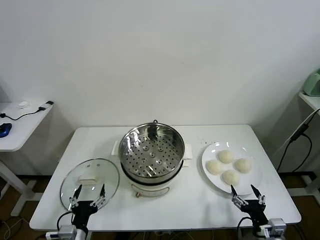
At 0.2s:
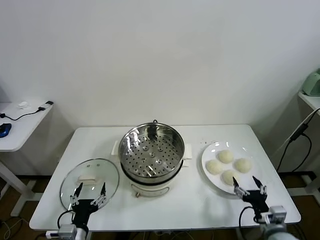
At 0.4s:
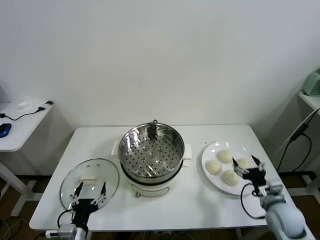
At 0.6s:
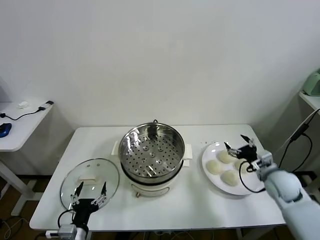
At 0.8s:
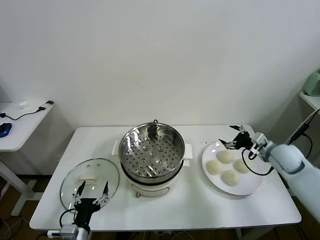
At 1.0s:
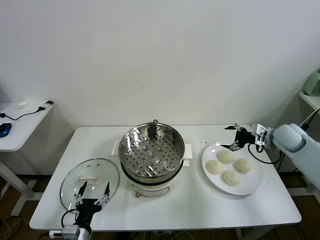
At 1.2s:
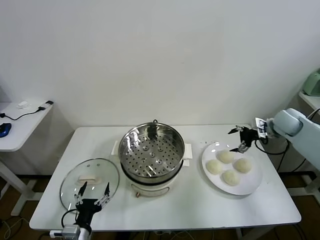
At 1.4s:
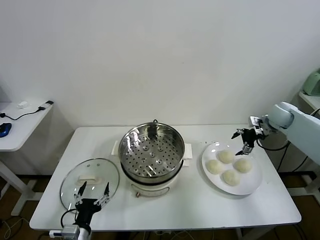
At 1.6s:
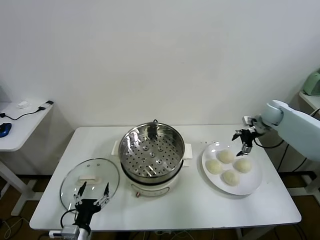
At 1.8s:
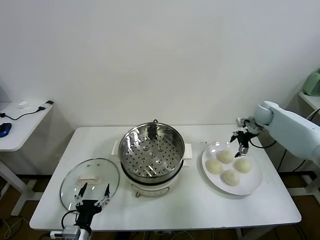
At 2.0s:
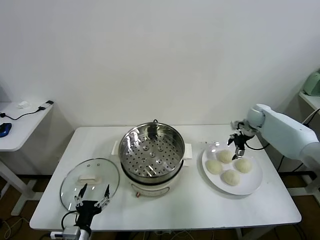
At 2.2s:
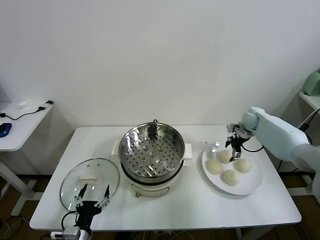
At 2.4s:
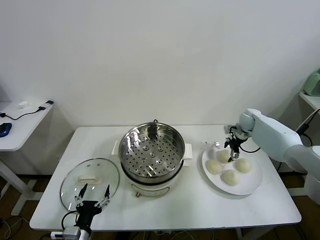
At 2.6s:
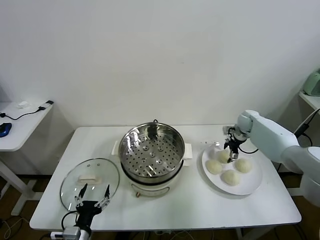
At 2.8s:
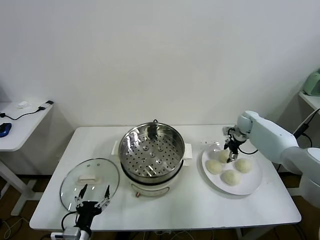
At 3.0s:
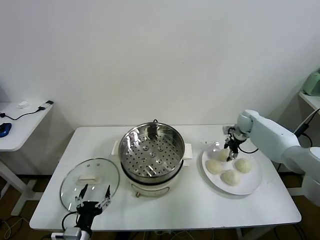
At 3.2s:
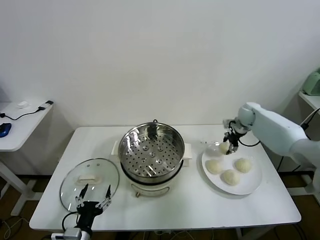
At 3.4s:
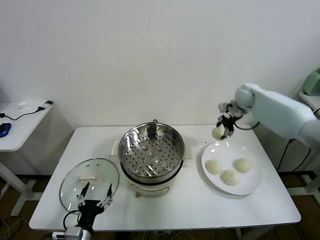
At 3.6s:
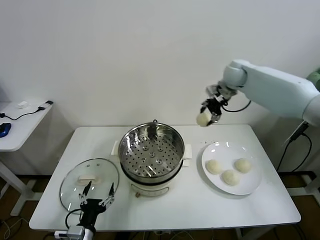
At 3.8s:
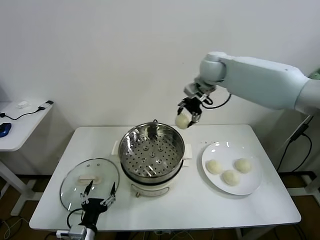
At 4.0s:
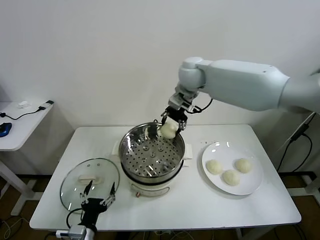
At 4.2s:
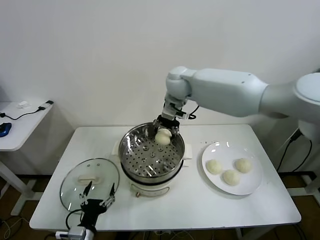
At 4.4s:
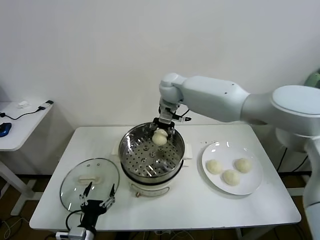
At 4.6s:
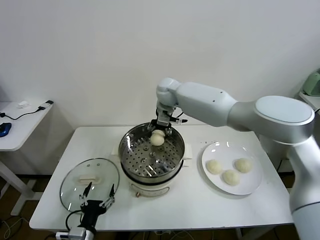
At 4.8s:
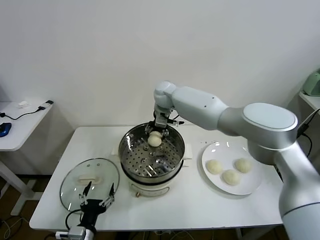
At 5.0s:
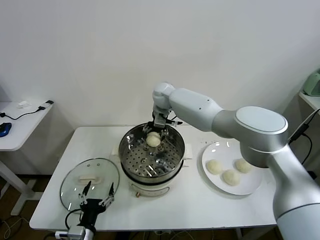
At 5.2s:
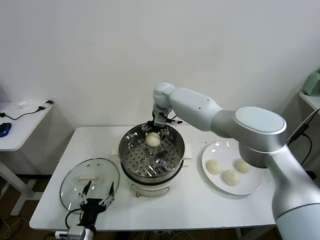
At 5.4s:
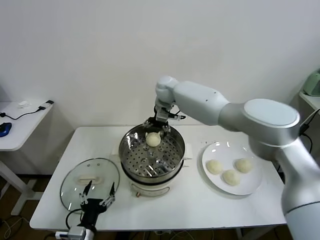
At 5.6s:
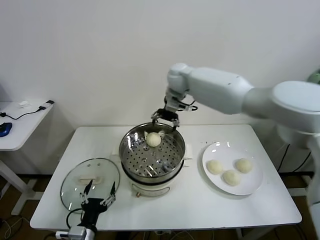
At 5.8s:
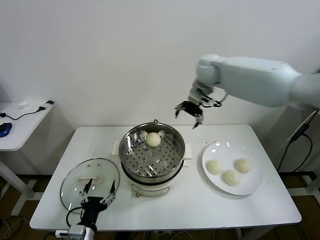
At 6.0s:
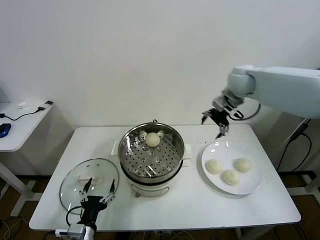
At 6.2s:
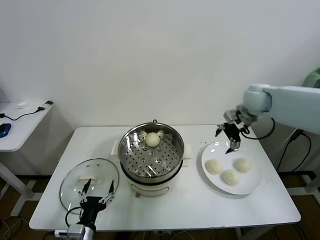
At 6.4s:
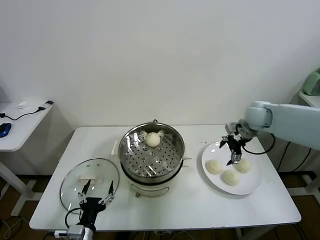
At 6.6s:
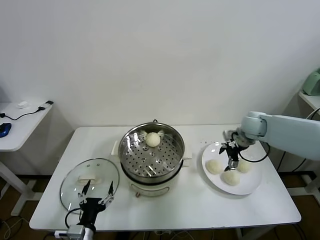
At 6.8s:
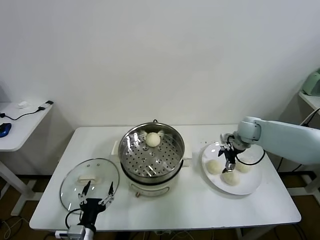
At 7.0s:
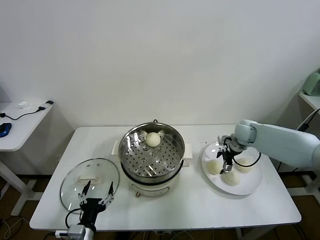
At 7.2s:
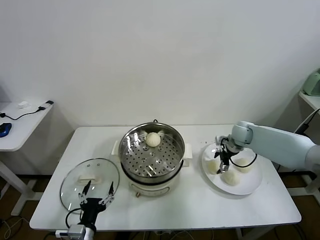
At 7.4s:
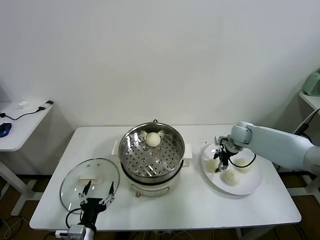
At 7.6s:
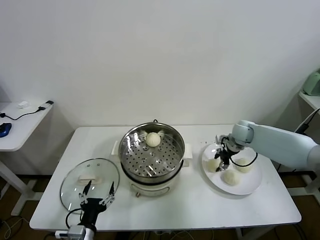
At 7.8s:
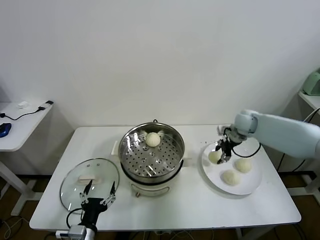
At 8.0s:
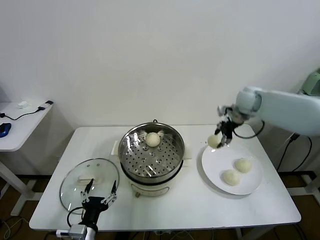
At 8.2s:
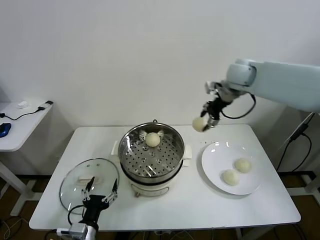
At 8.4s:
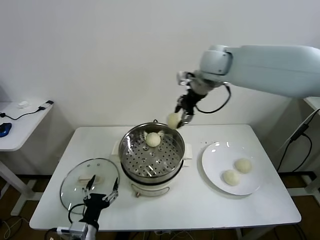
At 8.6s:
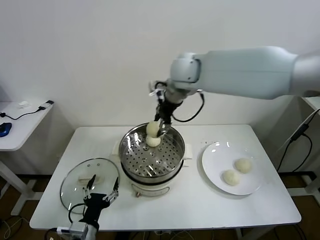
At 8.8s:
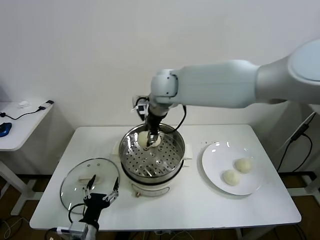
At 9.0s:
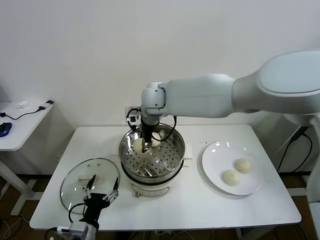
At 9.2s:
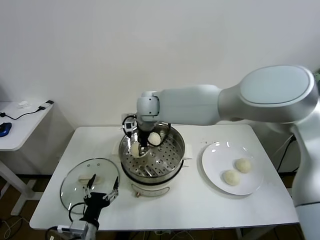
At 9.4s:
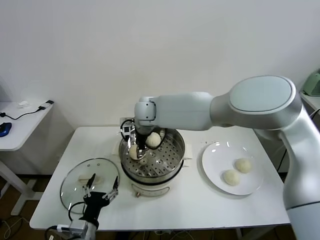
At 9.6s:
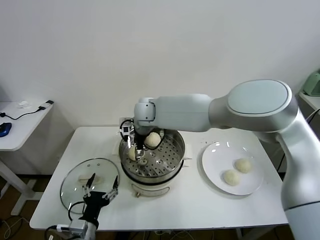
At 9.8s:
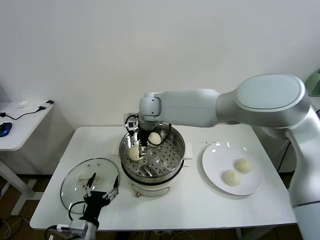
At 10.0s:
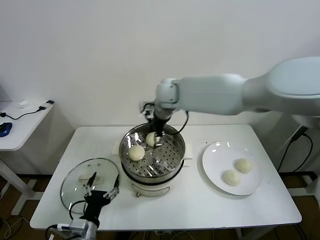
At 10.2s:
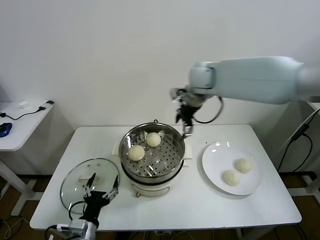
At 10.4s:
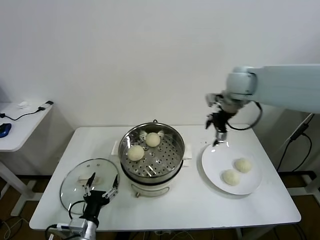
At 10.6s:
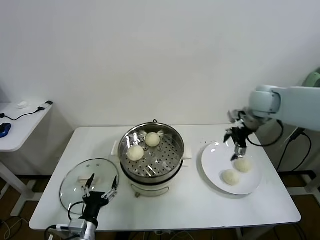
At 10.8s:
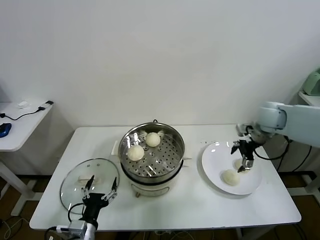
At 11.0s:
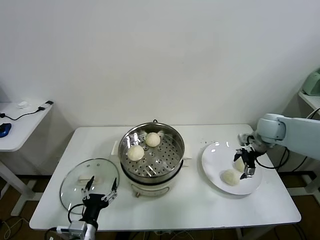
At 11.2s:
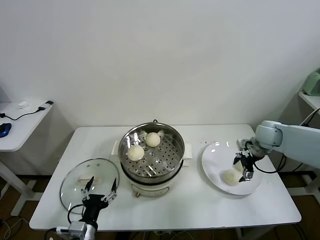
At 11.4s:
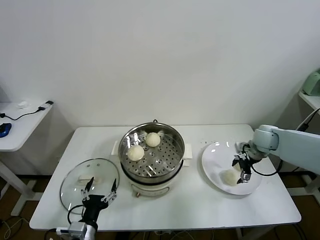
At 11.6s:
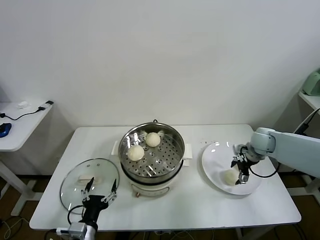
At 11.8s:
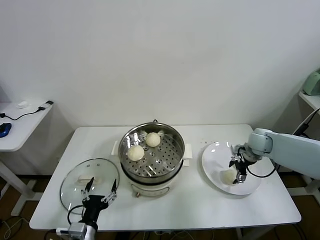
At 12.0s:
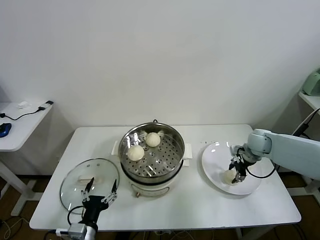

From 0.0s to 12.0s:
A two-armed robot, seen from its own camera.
Task of the whole recording: take steamed baozi put them in steamer.
Step, from 0.0s to 2.8s: Grasp the baozi in the plate with right gripper.
Step, from 3.0s to 5.0s: Place the baozi on the steamer with right gripper.
Step, from 5.2s to 7.4s: Grasp the baozi in the plate with right gripper.
Step, from 7.6s to 9.6s: Place the baozi on the steamer with right gripper.
From 1.6s to 3.0s: The right gripper heads to the left and downward, covering some 5 cm, and closes.
From 3.0s to 4.4s: The right gripper travels to the left and upward by roughly 40 cm.
From 4.4s to 6.0s: The right gripper travels to the right by about 25 cm, and opens up.
From 6.0s to 7.6s: The right gripper is displaced downward by roughly 20 cm, and closes its fingers.
From 7.6s to 9.0s: The right gripper shifts roughly 40 cm to the left and upward.
From 9.0s to 10.4s: The right gripper is displaced to the right by some 30 cm, and opens.
From 10.4s to 12.0s: The right gripper shifts approximately 25 cm downward and to the right, and closes.

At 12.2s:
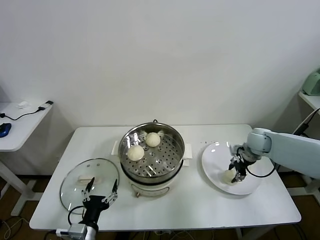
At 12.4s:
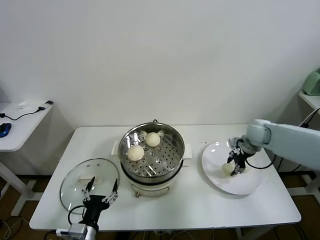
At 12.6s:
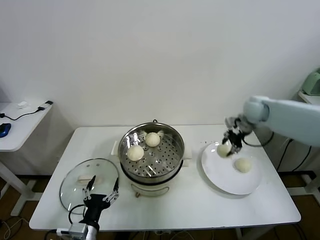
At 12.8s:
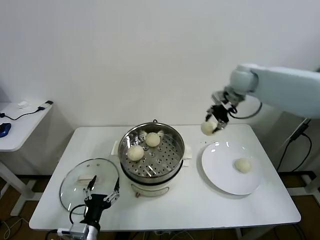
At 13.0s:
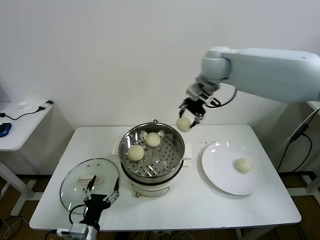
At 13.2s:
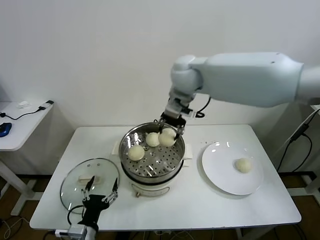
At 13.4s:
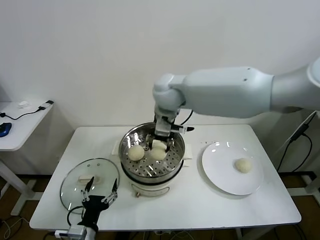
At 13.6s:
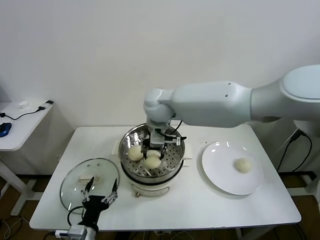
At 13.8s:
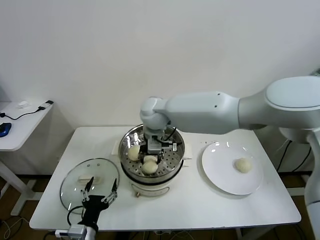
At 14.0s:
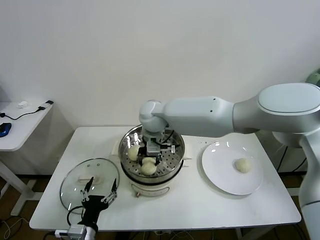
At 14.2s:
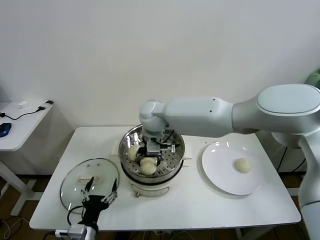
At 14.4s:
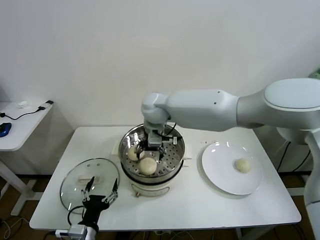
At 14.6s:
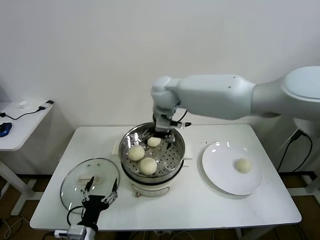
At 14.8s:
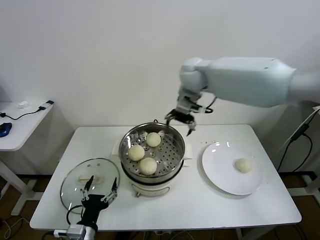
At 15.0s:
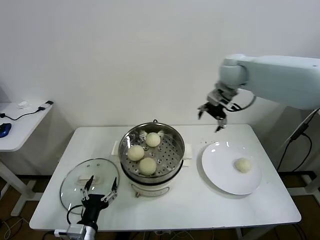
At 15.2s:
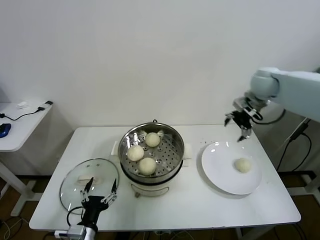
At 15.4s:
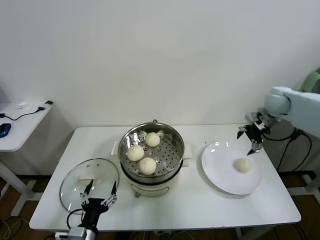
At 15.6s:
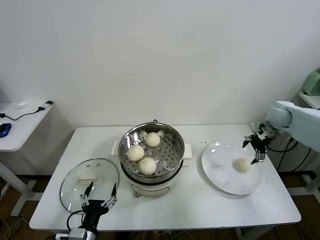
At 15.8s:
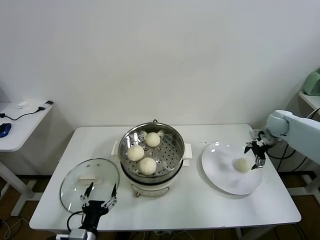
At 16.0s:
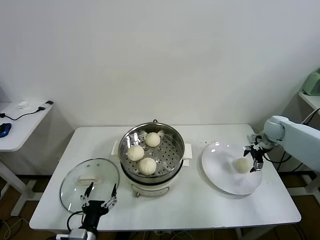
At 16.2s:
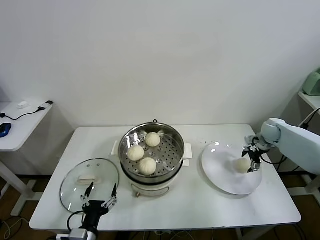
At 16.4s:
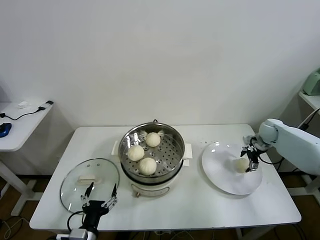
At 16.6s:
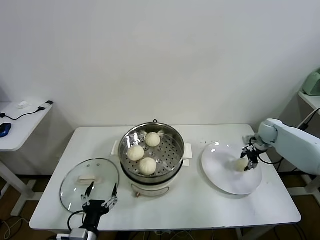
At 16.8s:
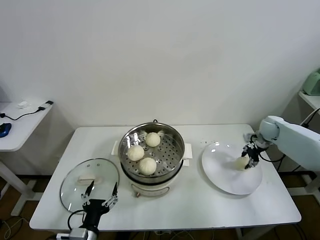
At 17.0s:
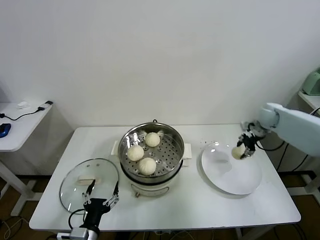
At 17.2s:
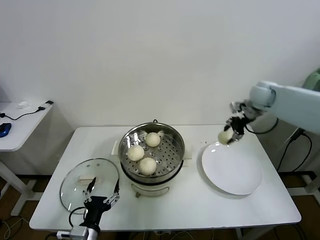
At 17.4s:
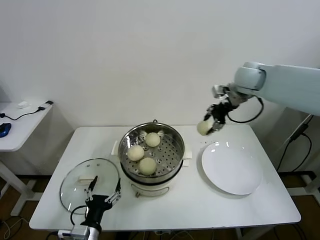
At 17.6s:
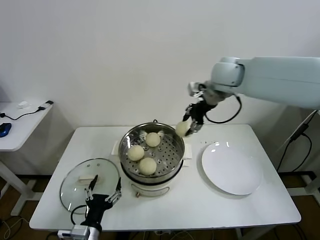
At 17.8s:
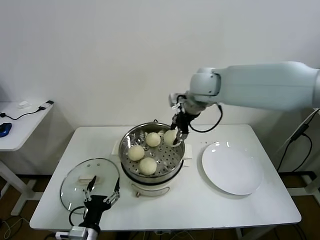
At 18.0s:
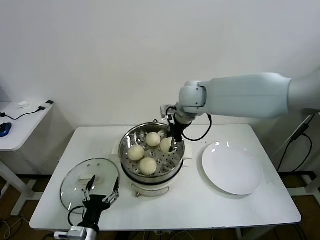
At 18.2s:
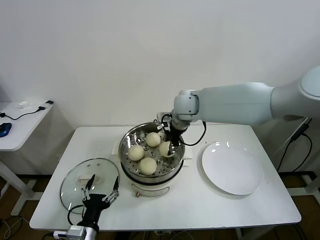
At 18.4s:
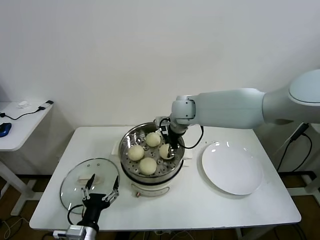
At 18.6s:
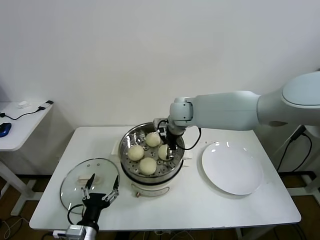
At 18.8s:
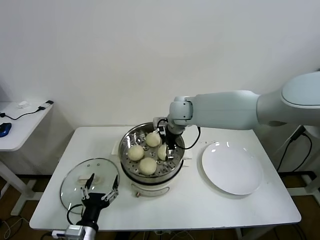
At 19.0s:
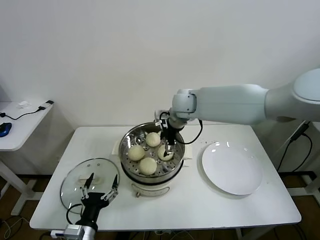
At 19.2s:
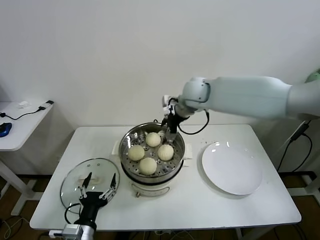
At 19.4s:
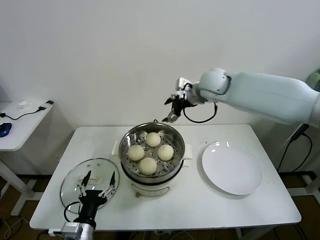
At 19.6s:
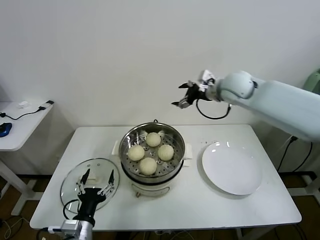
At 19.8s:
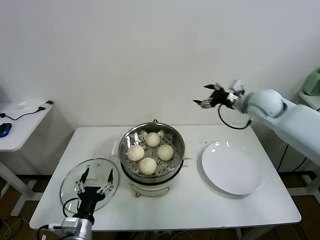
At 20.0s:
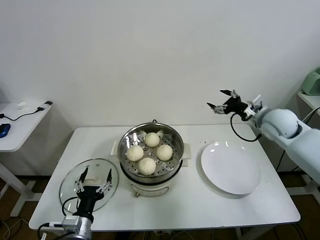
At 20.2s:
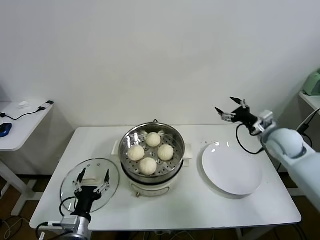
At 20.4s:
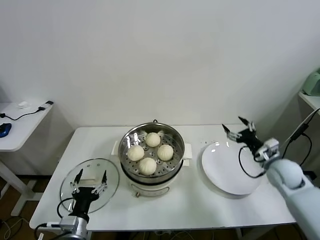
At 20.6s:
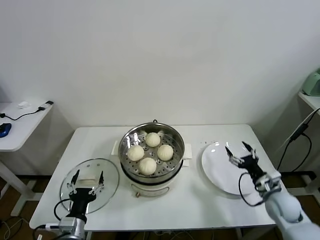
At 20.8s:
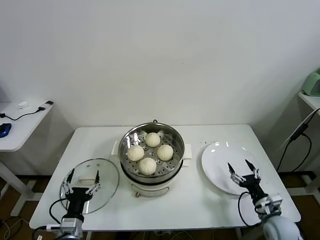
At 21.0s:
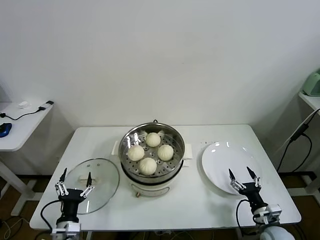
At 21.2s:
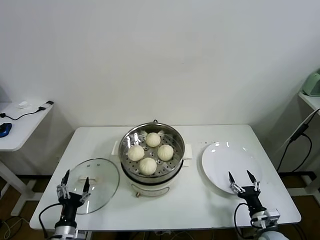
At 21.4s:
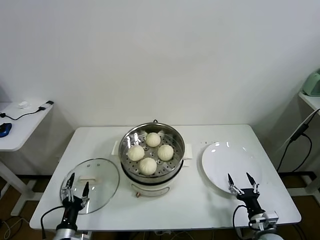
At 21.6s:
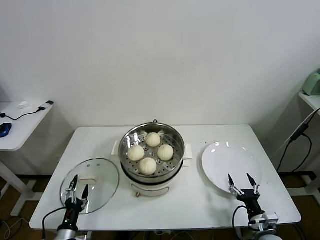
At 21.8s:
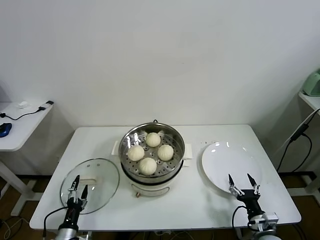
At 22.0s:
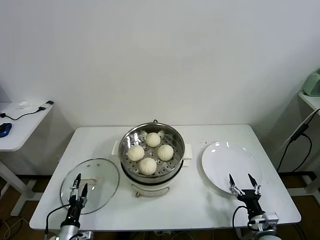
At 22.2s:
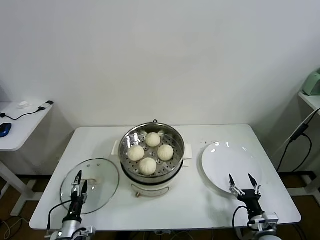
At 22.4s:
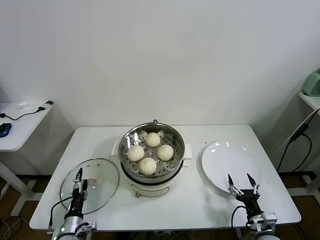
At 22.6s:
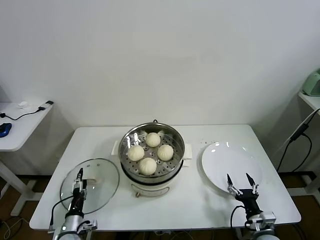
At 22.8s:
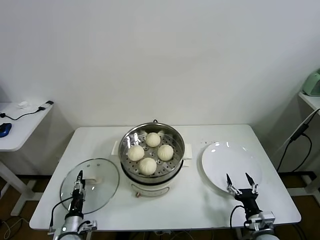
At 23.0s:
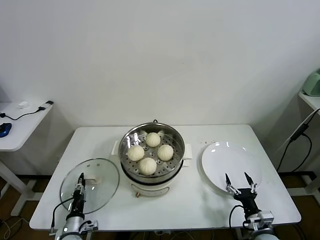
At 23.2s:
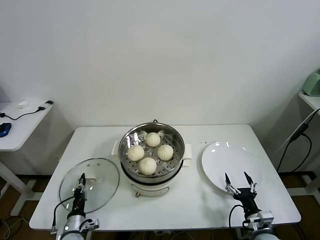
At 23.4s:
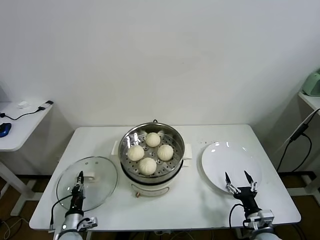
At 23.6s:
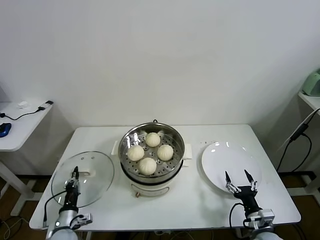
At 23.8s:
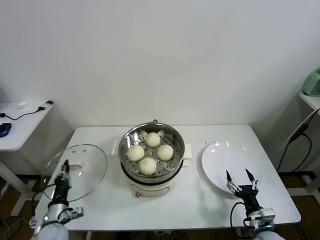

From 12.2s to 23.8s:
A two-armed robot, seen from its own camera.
Task of the whole recording: take steamed baozi put them in steamer.
Step, from 12.2s to 14.4s: Place the baozi on the steamer with right gripper.
Step, from 14.6s to 16.4s: Grasp the baozi in the plate with right gripper.
Step, from 16.6s to 18.8s: Place the baozi on the steamer with right gripper.
Step, from 19.0s to 23.2s: Grasp the pot lid with left gripper.
From 12.2s to 13.6s: The right gripper is displaced to the left and upward by about 40 cm.
From 13.6s to 15.0s: The right gripper travels to the right by some 25 cm, and opens up.
From 15.0s to 16.6s: The right gripper travels downward and to the right by about 35 cm, and closes its fingers.
From 16.6s to 18.0s: The right gripper heads to the left and upward, covering about 40 cm.
From 18.0s to 19.4s: The right gripper heads to the right, covering approximately 5 cm, moves some 5 cm downward and comes back, and opens up.
From 19.4s to 21.0s: The right gripper heads downward, backward and to the right, covering approximately 60 cm. Meanwhile the left gripper goes roughly 10 cm downward and to the left.
From 21.0s to 22.4s: The left gripper heads downward, covering about 10 cm.
From 22.4s to 23.8s: The left gripper travels upward by approximately 5 cm, and closes its fingers.
